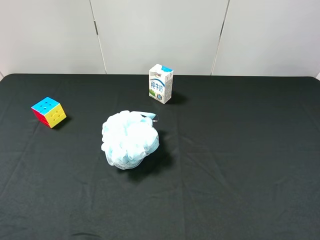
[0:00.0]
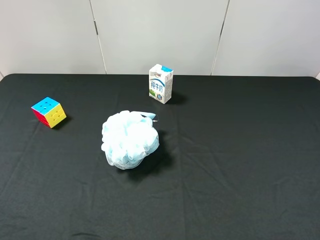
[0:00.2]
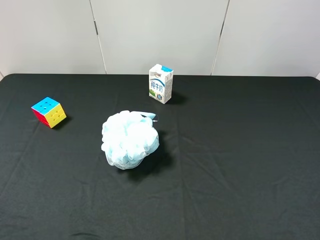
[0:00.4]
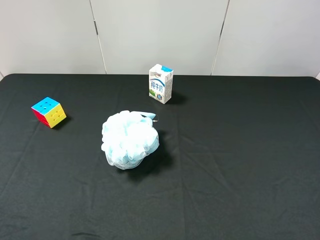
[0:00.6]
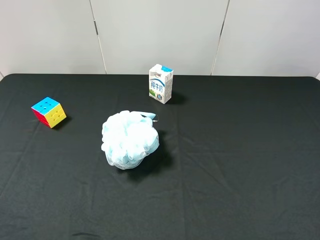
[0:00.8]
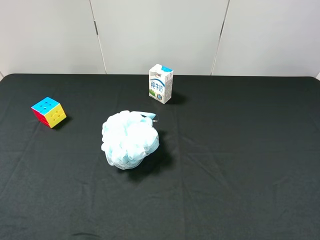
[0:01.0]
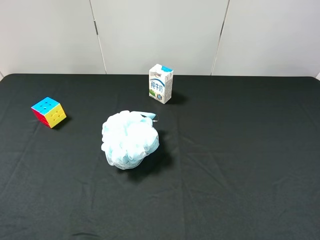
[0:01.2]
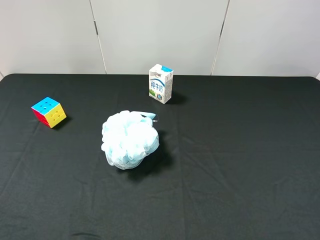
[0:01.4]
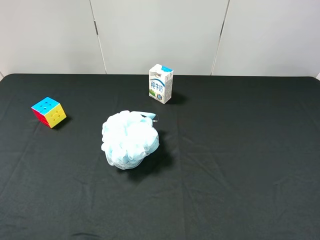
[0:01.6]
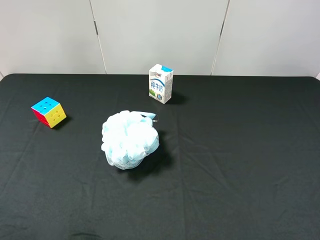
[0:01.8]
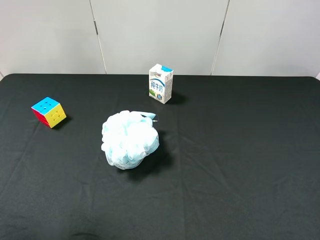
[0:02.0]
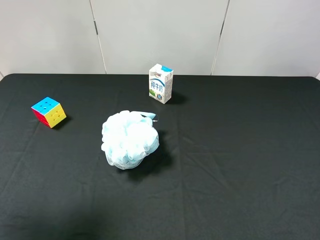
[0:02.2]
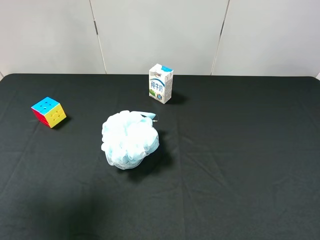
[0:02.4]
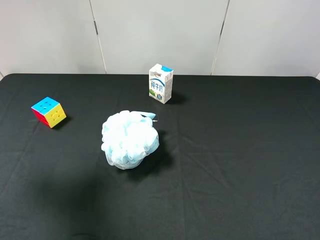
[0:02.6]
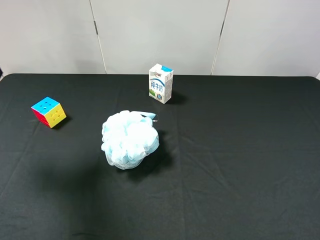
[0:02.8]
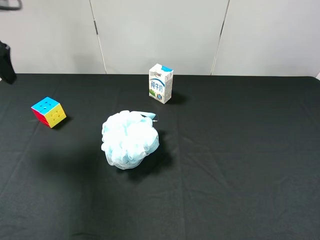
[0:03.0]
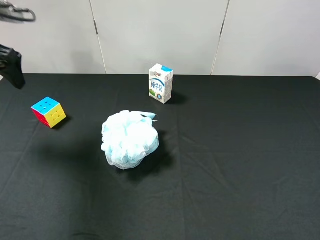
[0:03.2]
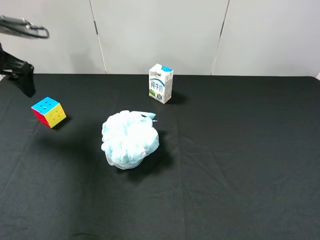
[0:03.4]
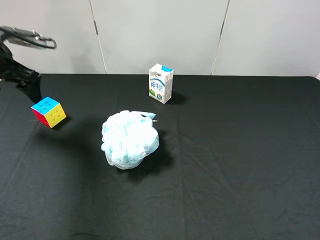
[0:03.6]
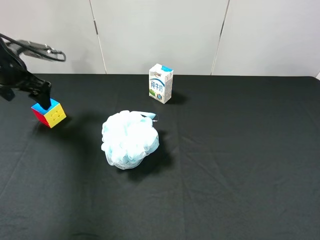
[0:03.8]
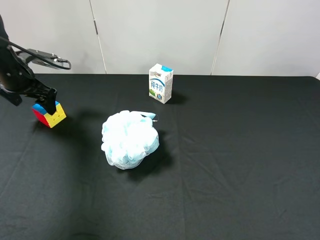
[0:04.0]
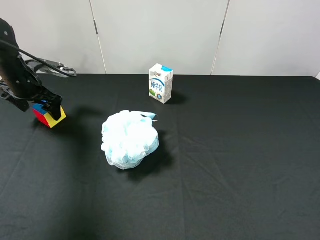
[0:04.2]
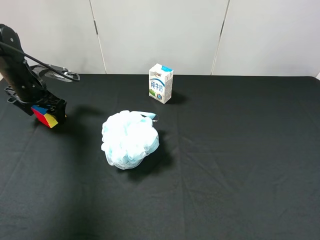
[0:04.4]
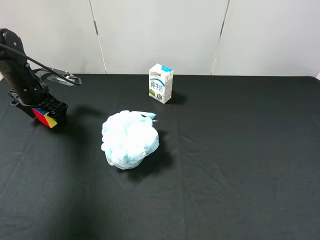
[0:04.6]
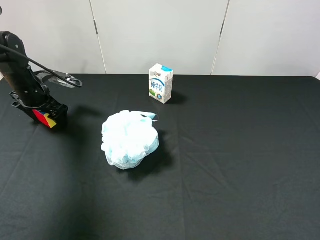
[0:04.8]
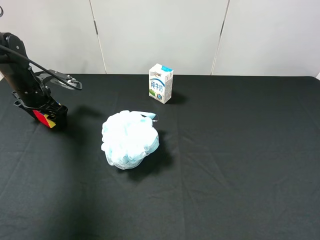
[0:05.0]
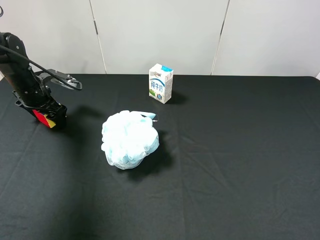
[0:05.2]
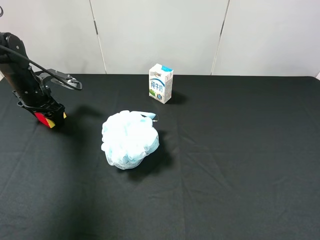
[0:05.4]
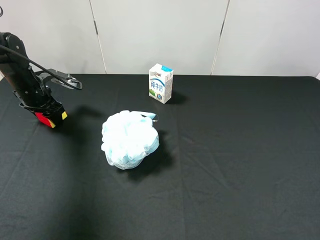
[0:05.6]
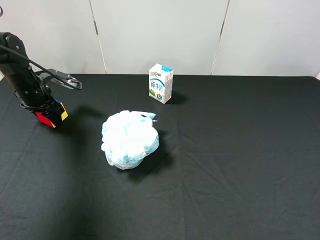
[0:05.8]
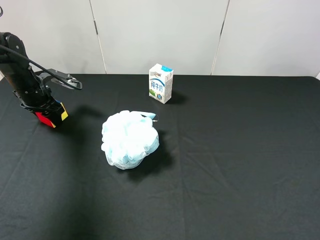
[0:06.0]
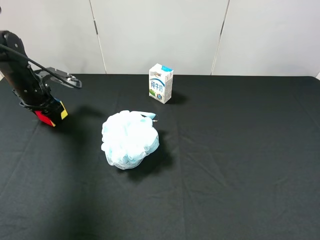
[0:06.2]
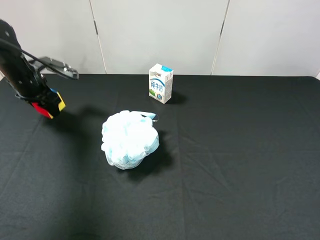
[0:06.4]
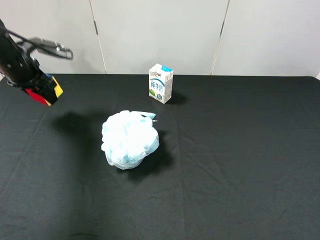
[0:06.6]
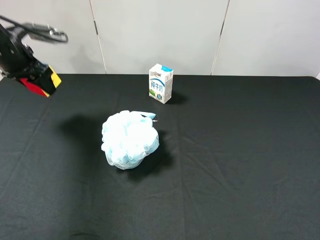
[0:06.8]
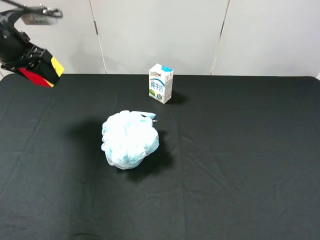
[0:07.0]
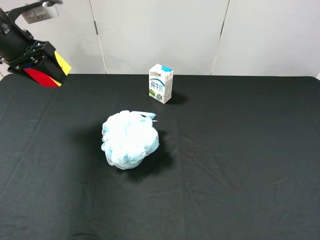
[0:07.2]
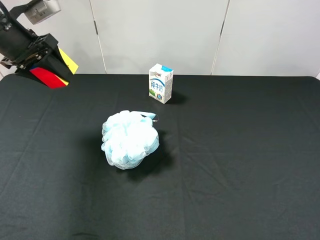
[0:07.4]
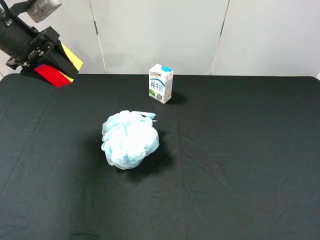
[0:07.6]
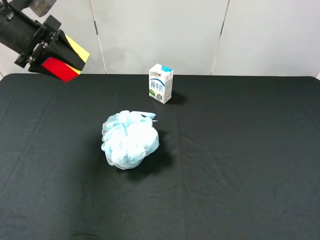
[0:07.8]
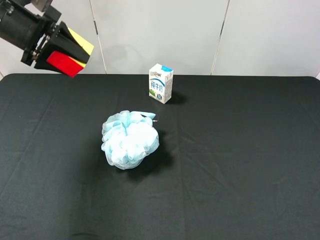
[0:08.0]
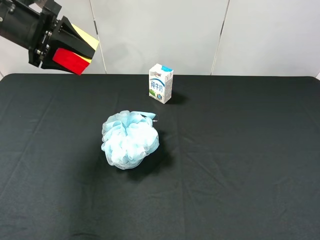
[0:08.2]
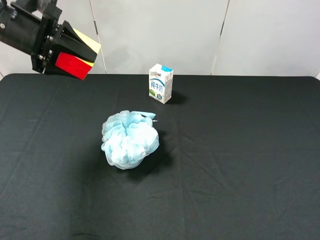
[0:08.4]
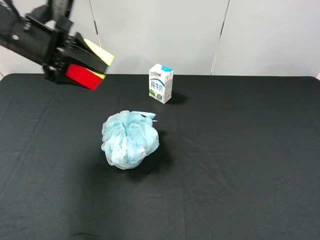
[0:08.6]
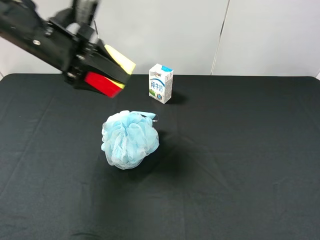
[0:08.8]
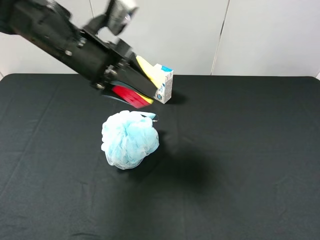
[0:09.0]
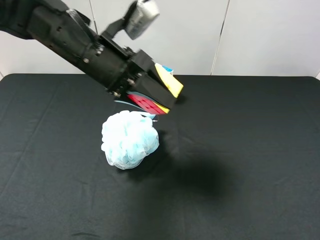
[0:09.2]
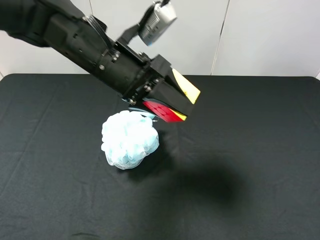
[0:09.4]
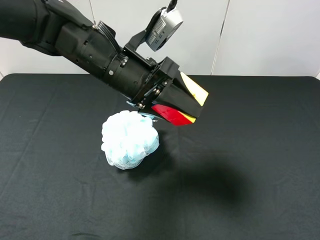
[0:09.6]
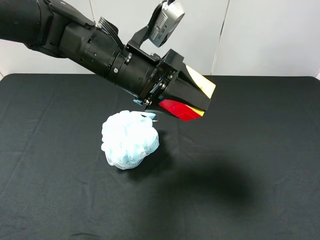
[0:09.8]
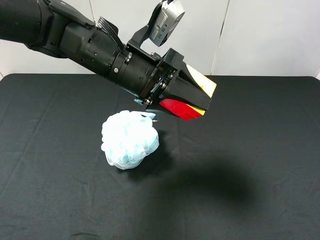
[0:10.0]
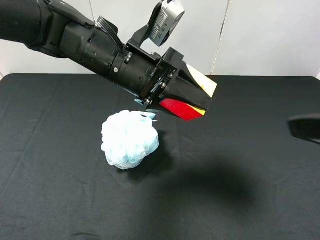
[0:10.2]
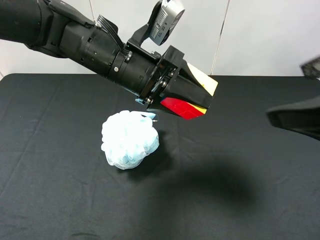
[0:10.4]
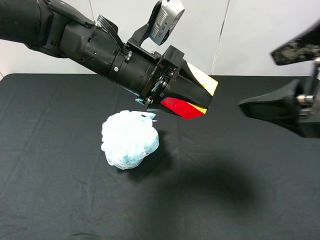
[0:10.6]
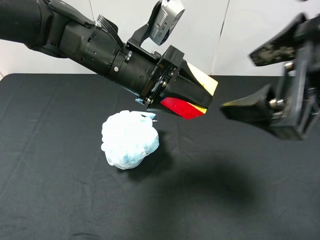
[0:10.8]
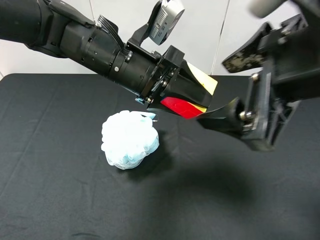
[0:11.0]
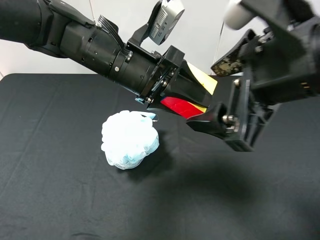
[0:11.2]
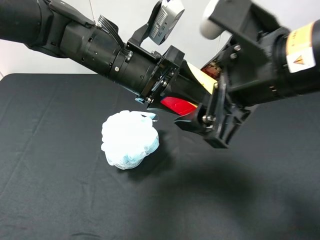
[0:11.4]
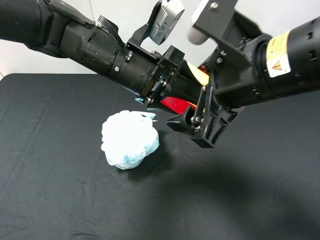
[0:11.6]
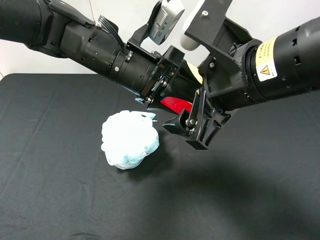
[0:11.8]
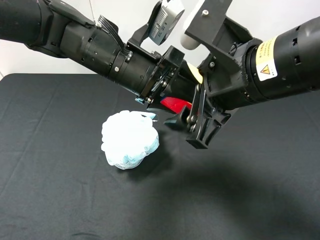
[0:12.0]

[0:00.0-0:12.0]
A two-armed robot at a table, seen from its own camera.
Task of the whole recording: use the left gripper to pick up the item and transfer it from the left gripper to the right gripper.
0:01.6 to 0:03.0: The left gripper travels forward by roughly 30 cm.
0:03.0 to 0:04.4: The left gripper goes roughly 20 cm downward and forward.
0:04.4 to 0:06.0: The left gripper closes.
0:06.0 to 0:07.6: The left gripper goes about 15 cm upward.
0:07.6 to 0:09.0: The left gripper shifts about 15 cm to the right.
0:09.0 to 0:10.4: The left gripper shifts some 5 cm to the right. The right gripper is displaced forward, to the left and upward by roughly 15 cm.
0:10.4 to 0:12.0: The right gripper heads to the left, downward and forward, covering some 15 cm, and closes its fingers.

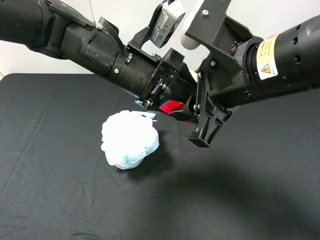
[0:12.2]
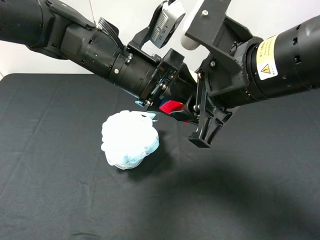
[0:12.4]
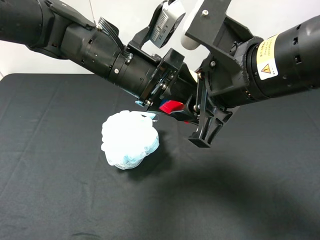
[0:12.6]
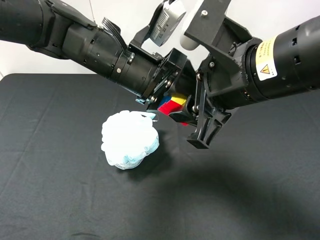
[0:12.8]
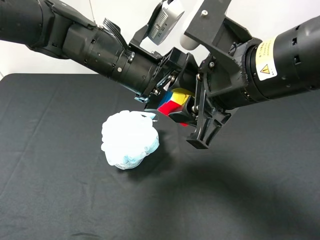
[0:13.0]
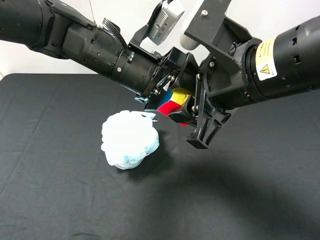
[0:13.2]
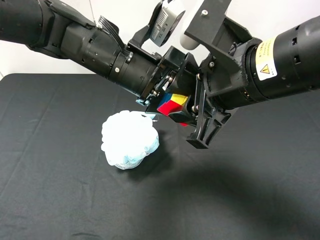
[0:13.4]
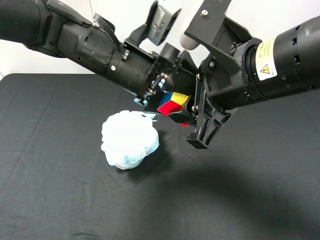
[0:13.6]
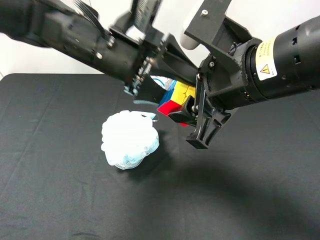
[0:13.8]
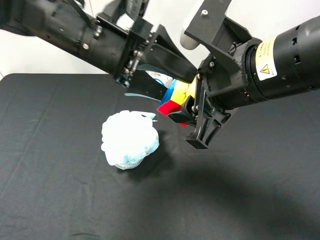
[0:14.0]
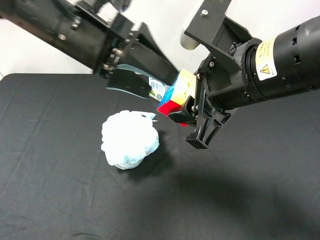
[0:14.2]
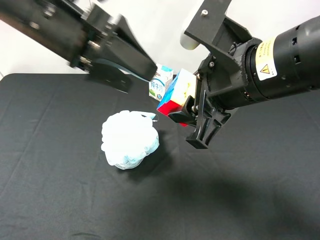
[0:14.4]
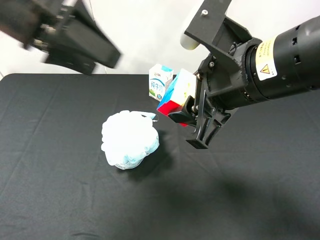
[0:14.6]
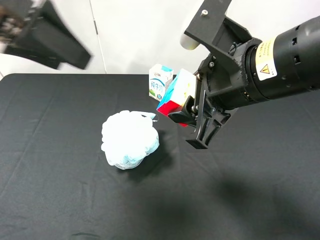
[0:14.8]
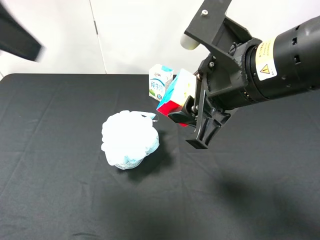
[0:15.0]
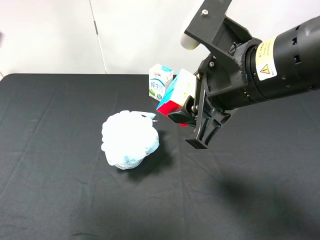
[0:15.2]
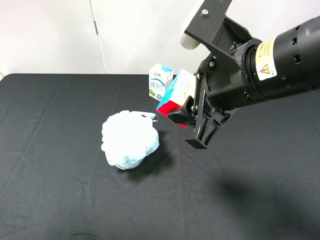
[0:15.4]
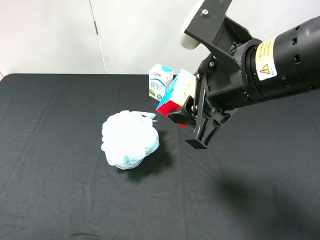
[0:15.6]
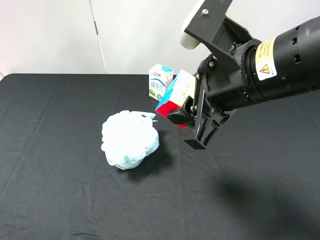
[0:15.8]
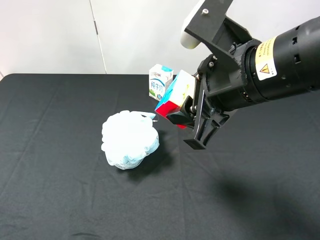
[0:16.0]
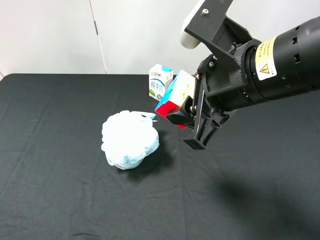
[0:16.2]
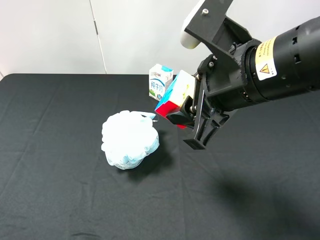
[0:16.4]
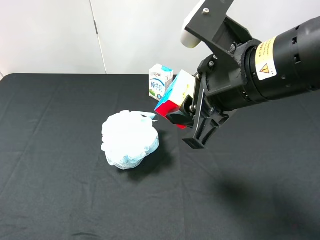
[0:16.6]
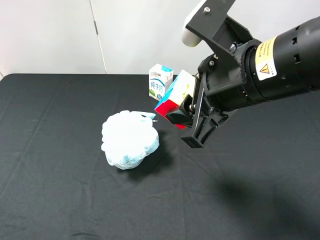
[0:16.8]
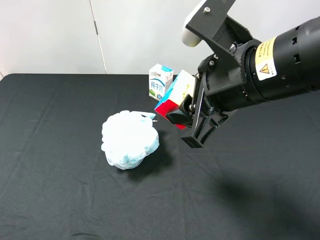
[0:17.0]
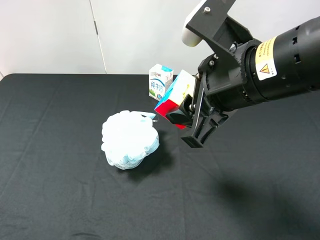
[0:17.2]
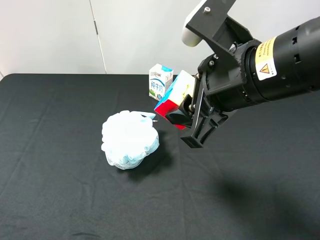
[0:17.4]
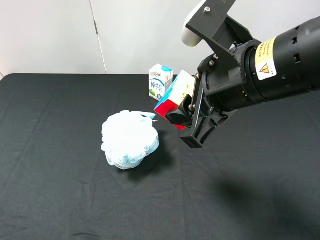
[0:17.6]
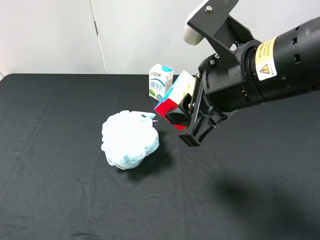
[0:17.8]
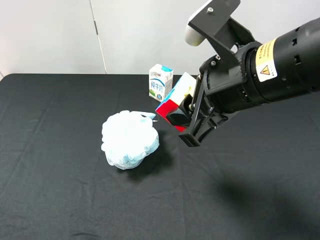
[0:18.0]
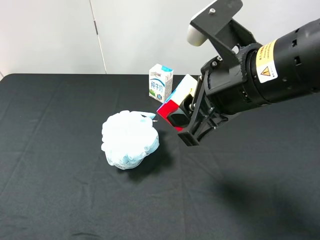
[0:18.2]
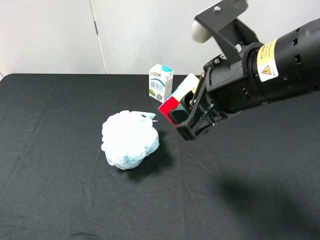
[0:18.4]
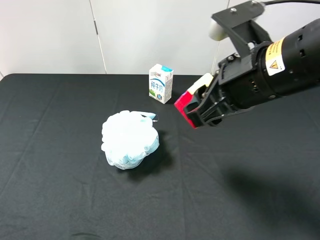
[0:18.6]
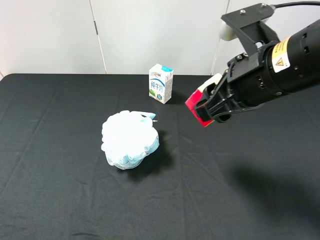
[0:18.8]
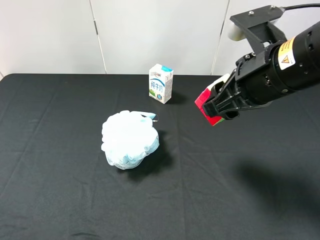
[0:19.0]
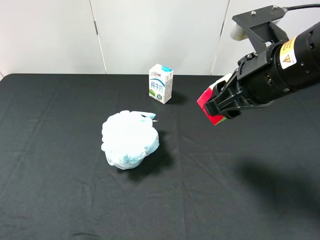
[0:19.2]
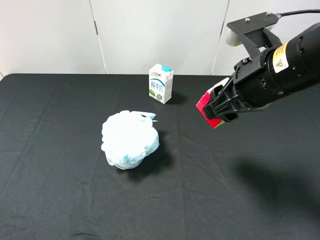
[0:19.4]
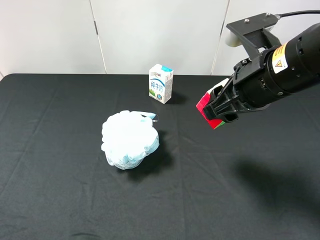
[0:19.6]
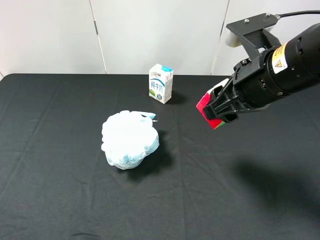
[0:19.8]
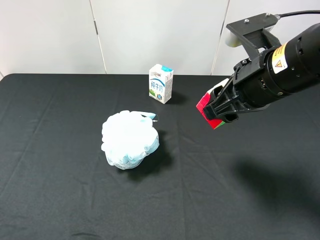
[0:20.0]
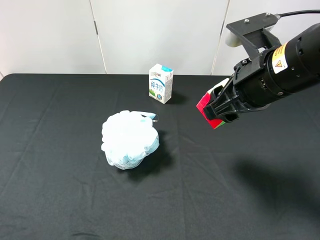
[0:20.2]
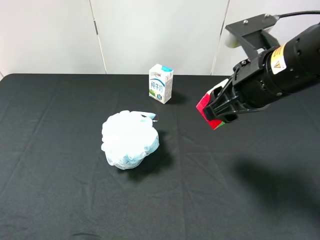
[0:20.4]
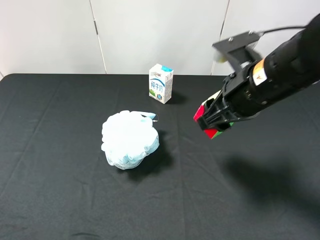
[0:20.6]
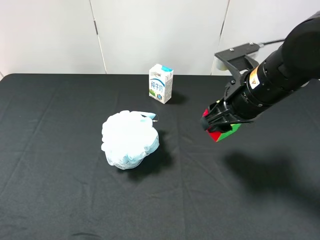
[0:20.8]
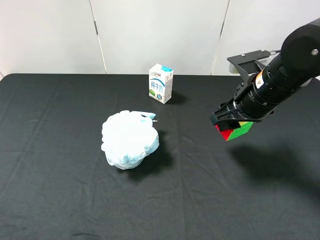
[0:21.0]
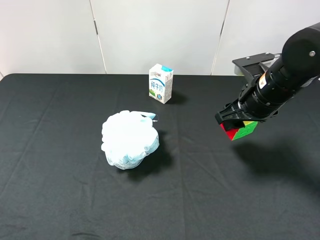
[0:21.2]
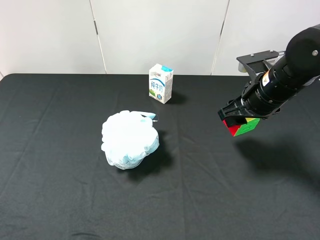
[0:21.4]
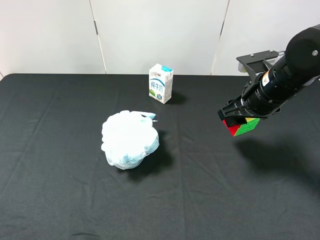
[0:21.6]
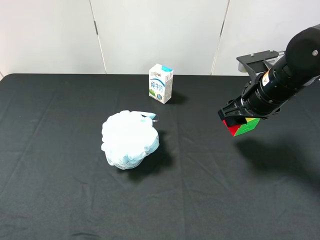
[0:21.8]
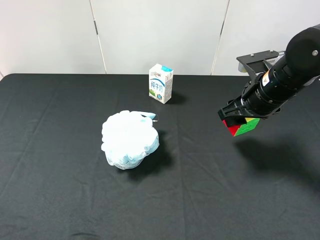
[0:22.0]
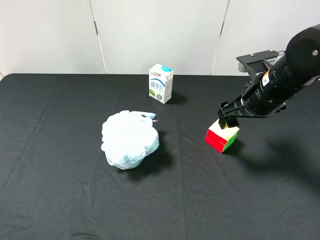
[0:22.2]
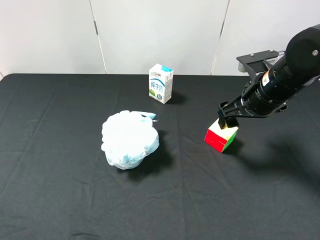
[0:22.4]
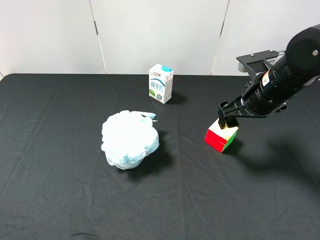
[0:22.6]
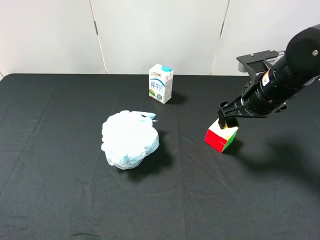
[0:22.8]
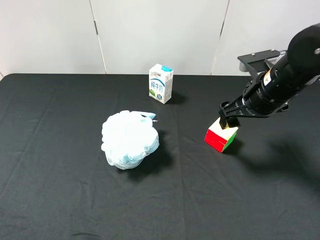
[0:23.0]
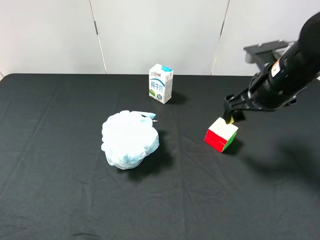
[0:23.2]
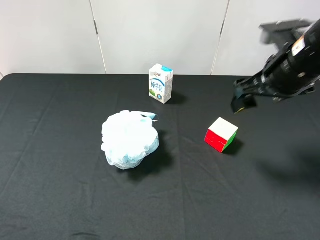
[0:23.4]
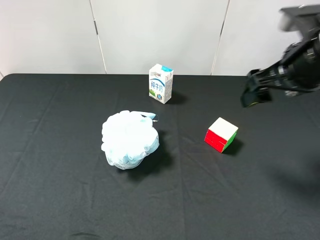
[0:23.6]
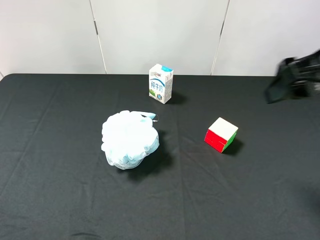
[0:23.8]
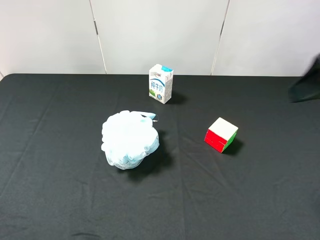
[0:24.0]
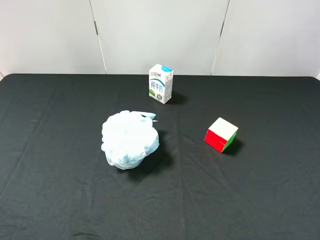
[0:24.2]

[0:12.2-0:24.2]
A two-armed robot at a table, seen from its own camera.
Task of the whole recording: use the left gripper to pick up the item and transfer it from the left gripper to the right gripper.
0:12.2 to 0:13.8: The left gripper opens up.
0:13.8 to 0:15.2: The left gripper heads to the left, upward and backward, covering approximately 25 cm.
0:15.2 to 0:16.6: The left gripper moves backward and downward, roughly 20 cm.
0:16.6 to 0:18.2: The grippers move only a little.
0:18.2 to 0:19.8: The right gripper moves some 5 cm.
0:19.8 to 0:21.2: The right gripper travels downward and forward by about 10 cm.
0:21.2 to 0:22.6: The right gripper opens up.
0:22.6 to 0:24.2: The right gripper goes about 25 cm backward, upward and to the right.
